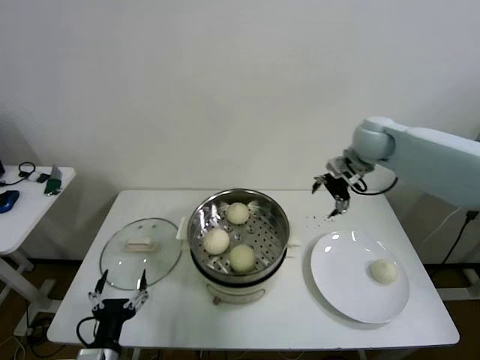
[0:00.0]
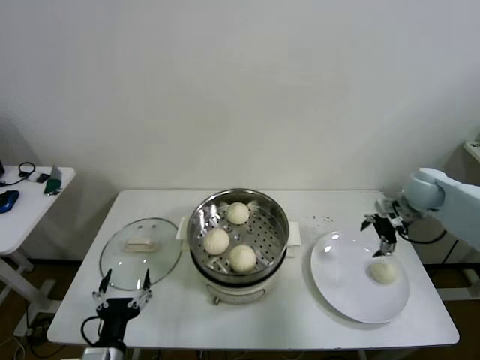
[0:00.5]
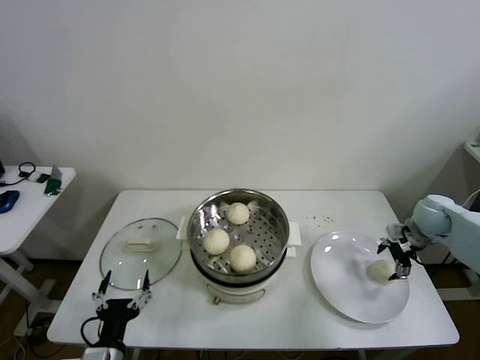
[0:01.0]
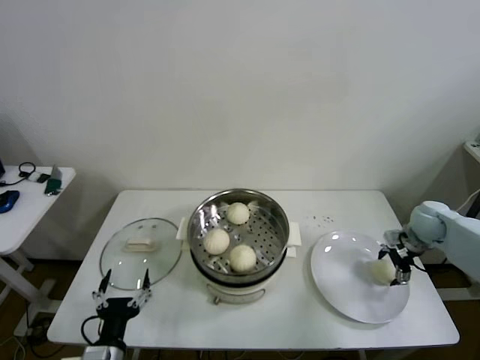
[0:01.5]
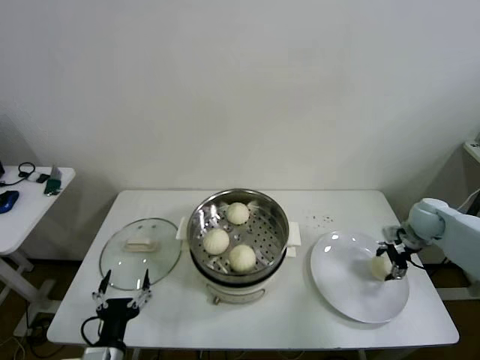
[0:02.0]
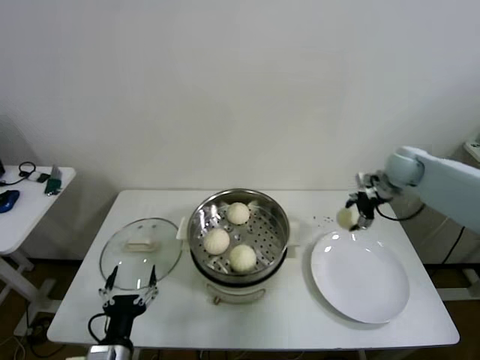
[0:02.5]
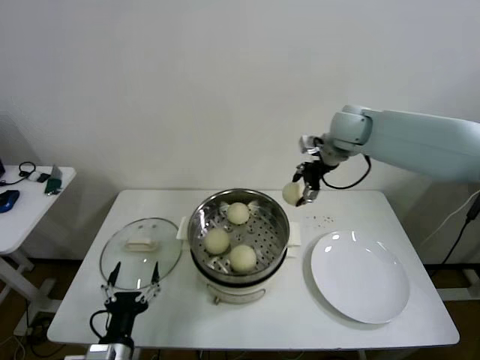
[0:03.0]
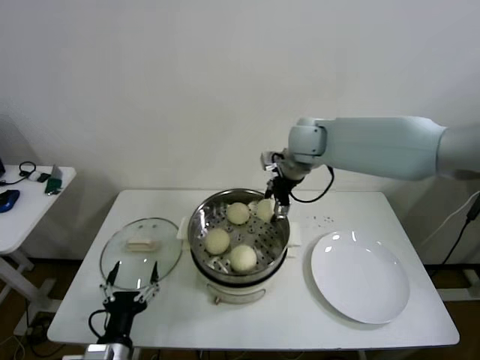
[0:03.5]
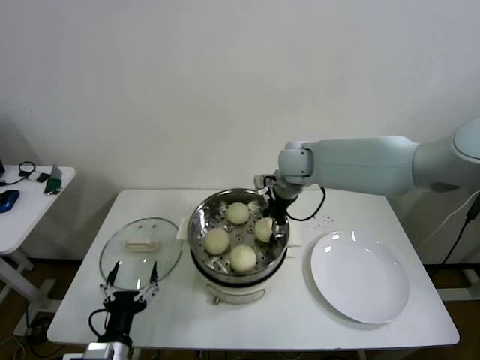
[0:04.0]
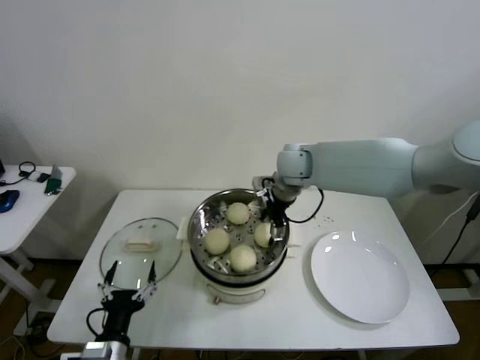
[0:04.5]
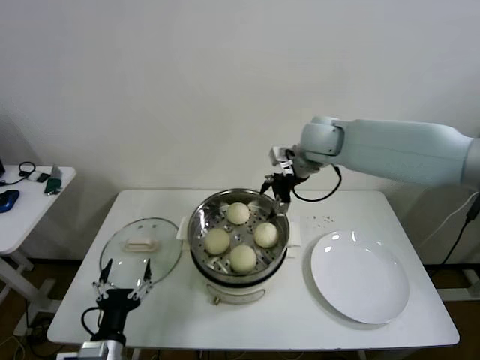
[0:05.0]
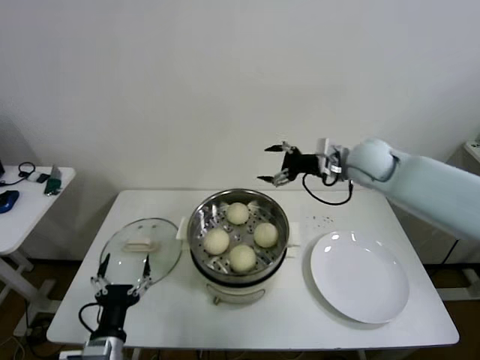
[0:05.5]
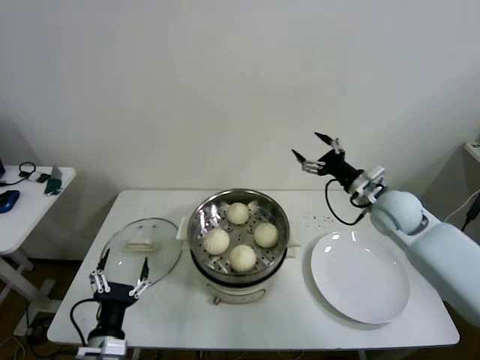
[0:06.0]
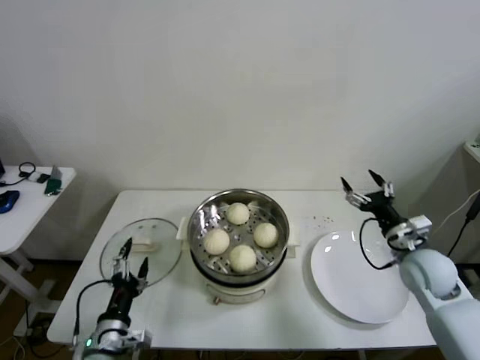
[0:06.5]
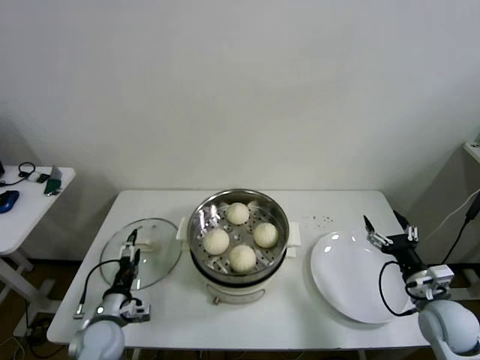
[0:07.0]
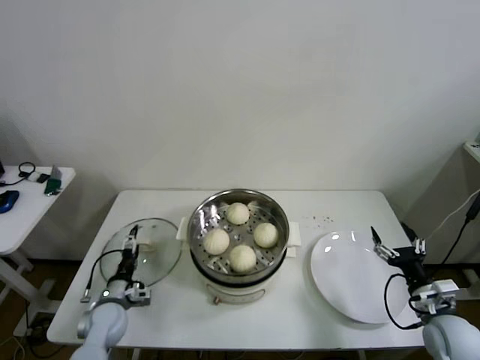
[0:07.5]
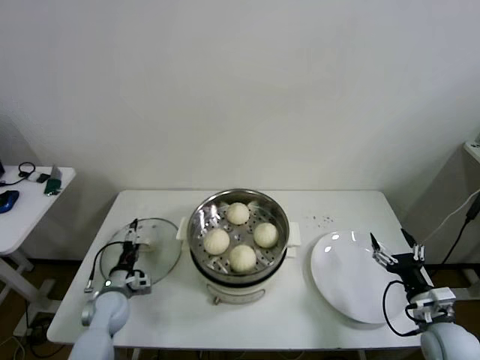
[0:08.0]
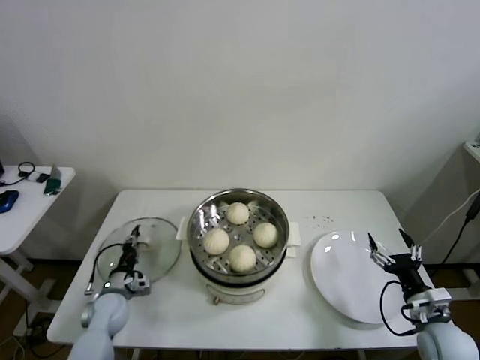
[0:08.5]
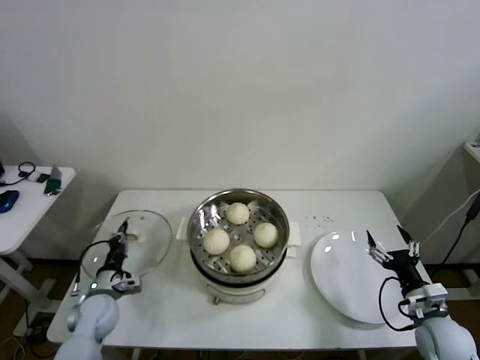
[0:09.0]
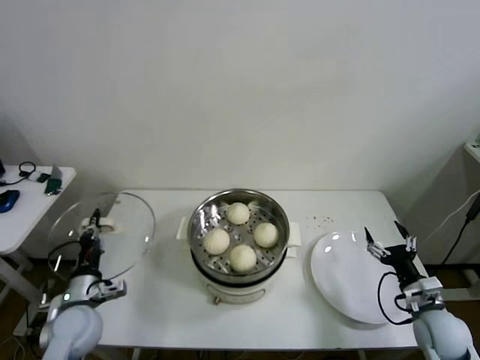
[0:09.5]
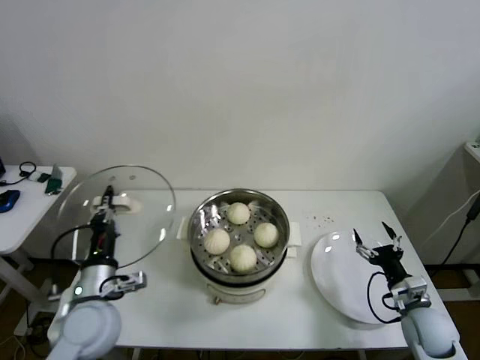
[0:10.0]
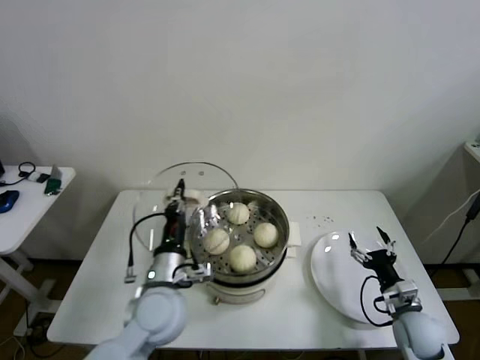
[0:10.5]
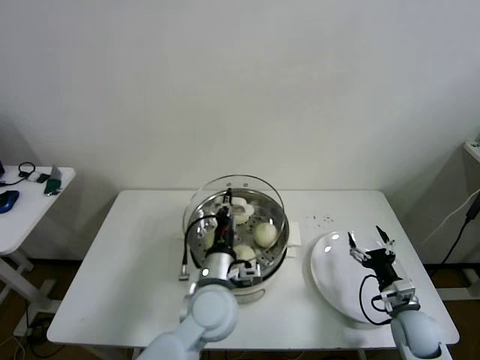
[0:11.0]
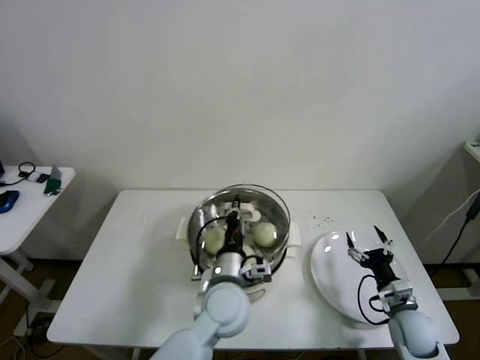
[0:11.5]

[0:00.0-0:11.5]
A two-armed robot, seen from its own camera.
Step, 0:00.0 to 0:01.5: Grasp the baozi in the plate with right gripper.
Step, 0:02.0 to 0:04.5: Place the baozi on the steamer with right gripper.
Step, 0:05.0 to 0:08.5: Grasp the pot lid with left gripper.
0:00.0 to 0:02.0: The right gripper moves downward, to the right and backward, roughly 25 cm, and closes.
0:02.0 to 0:04.0: The right gripper moves to the left and upward, some 35 cm.
0:04.0 to 0:06.0: The right gripper travels to the right and backward by some 20 cm, and opens up.
0:06.0 to 0:07.5: The right gripper heads backward, downward and to the right, covering about 25 cm; the left gripper moves forward, downward and to the left, roughly 20 cm.
0:07.5 to 0:09.5: The left gripper is displaced upward by roughly 10 cm, and closes up.
0:09.5 to 0:11.5: The right gripper shifts by some 5 cm, while the left gripper travels to the right by roughly 30 cm.

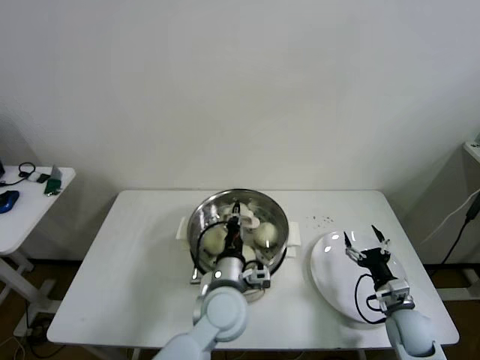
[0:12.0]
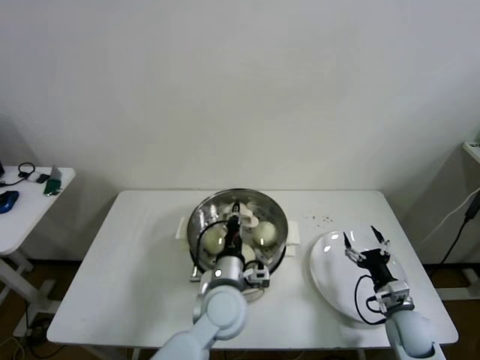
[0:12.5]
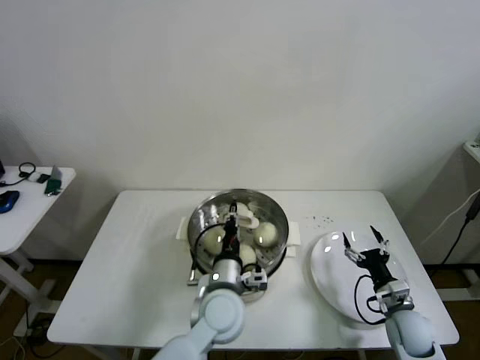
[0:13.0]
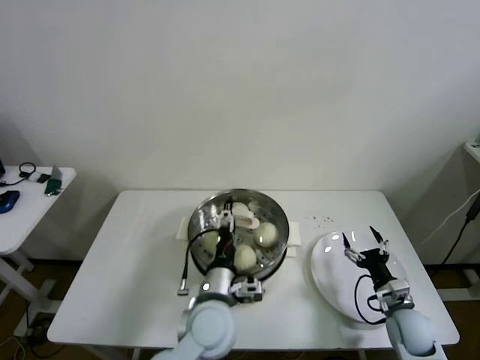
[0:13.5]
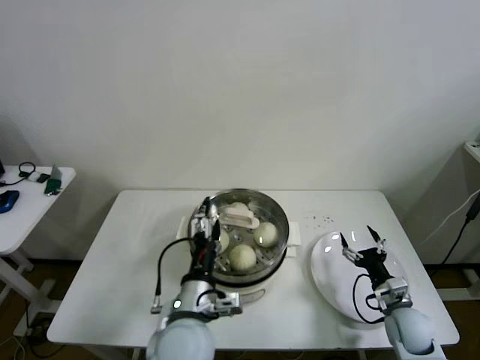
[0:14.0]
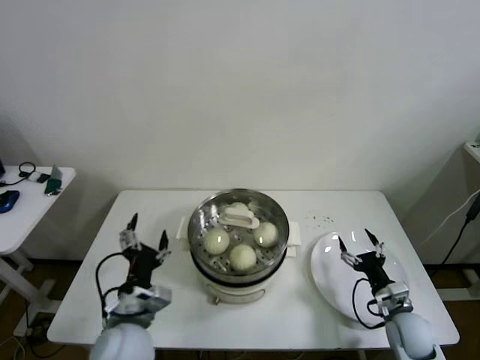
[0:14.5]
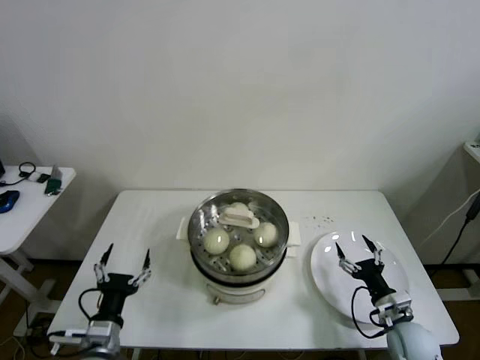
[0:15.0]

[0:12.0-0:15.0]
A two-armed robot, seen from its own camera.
0:12.0 to 0:13.5: The left gripper opens up.
0:13.5 to 0:15.0: The left gripper moves to the left, some 20 cm.

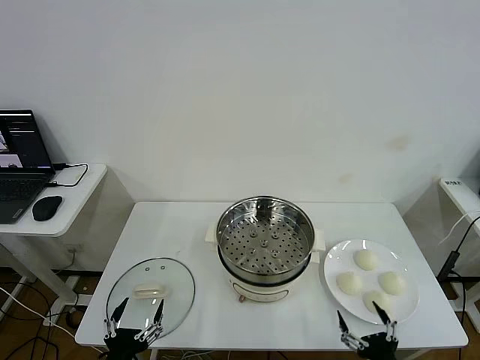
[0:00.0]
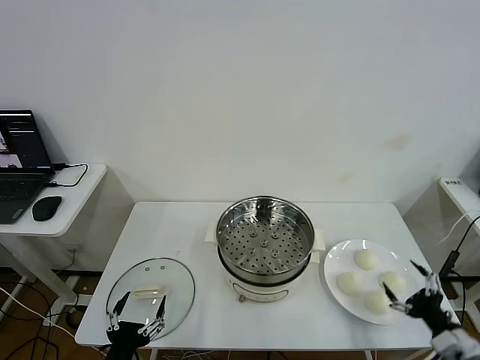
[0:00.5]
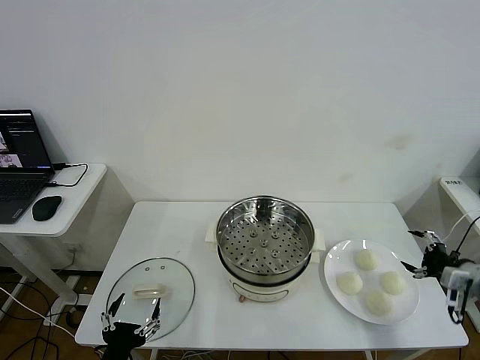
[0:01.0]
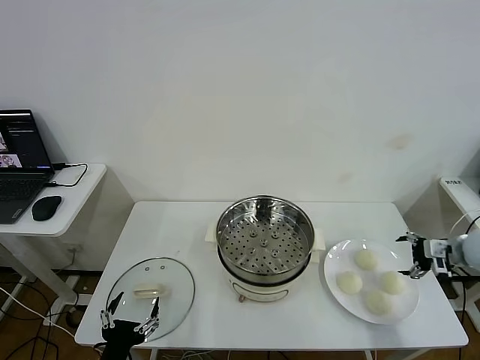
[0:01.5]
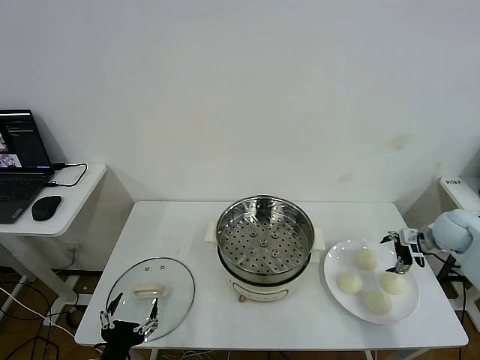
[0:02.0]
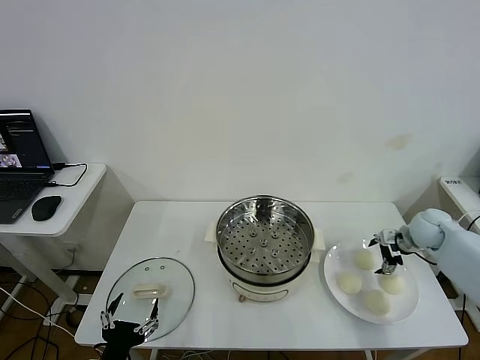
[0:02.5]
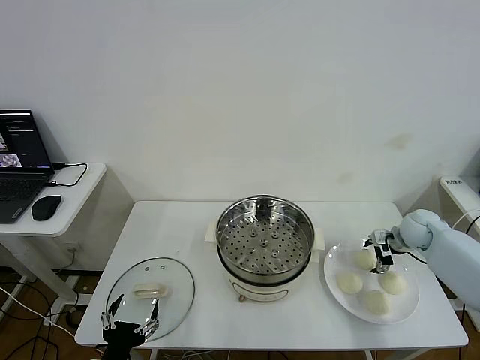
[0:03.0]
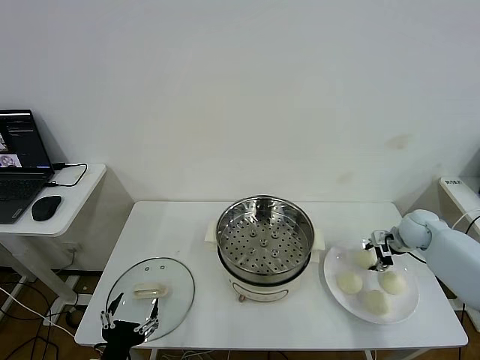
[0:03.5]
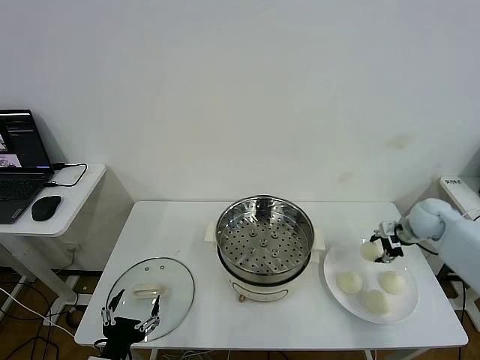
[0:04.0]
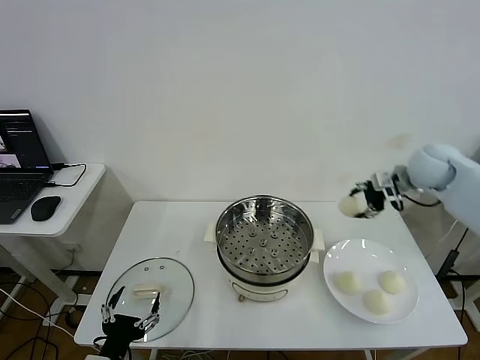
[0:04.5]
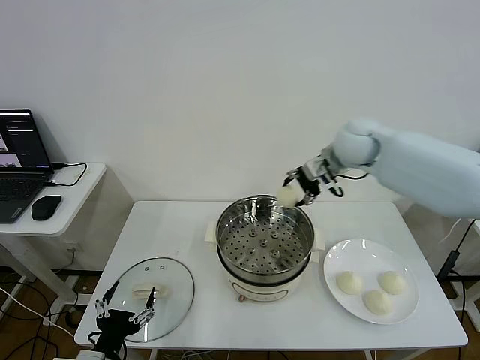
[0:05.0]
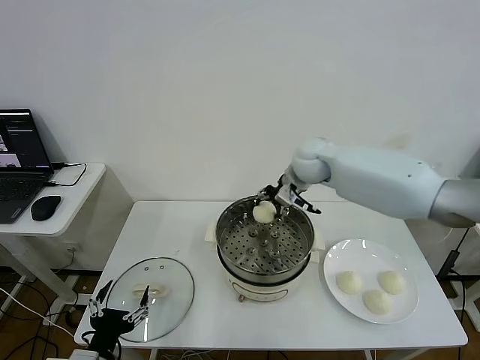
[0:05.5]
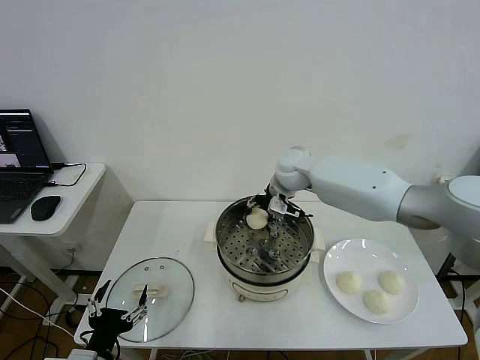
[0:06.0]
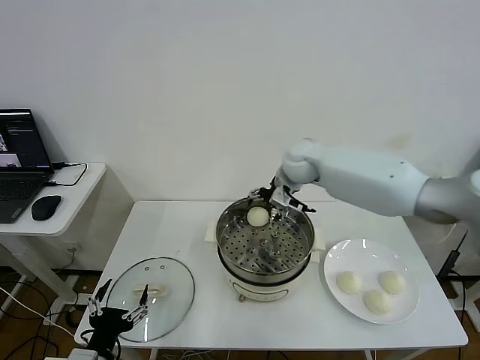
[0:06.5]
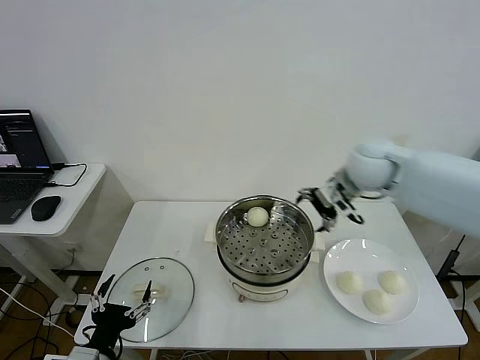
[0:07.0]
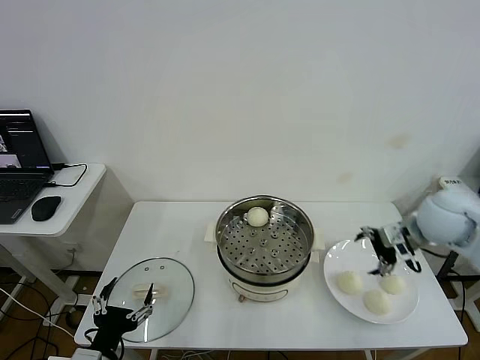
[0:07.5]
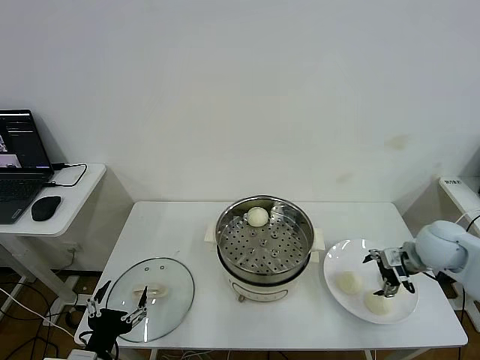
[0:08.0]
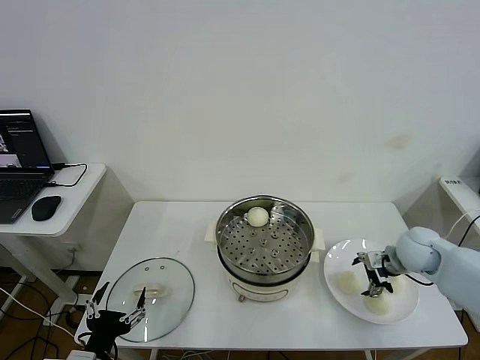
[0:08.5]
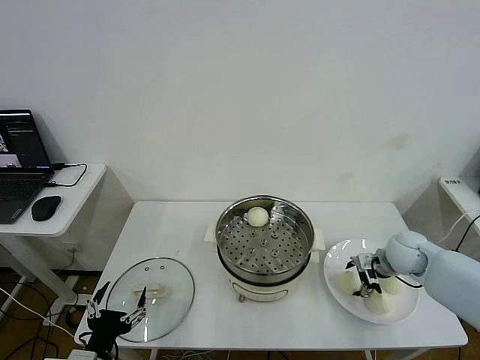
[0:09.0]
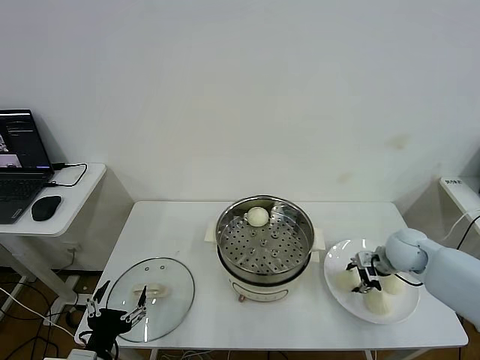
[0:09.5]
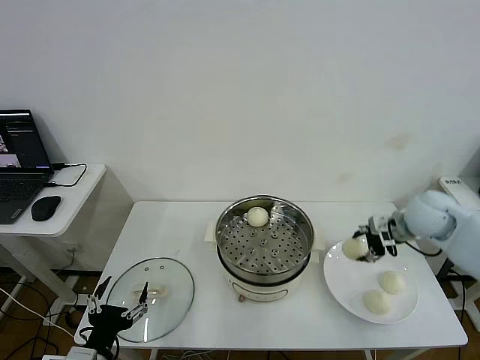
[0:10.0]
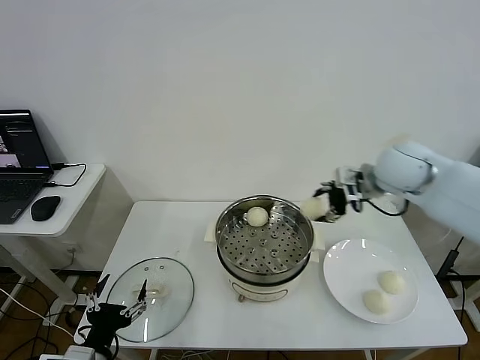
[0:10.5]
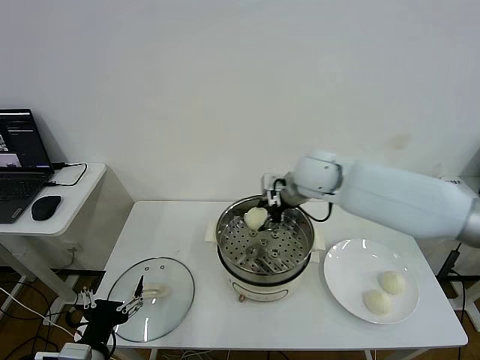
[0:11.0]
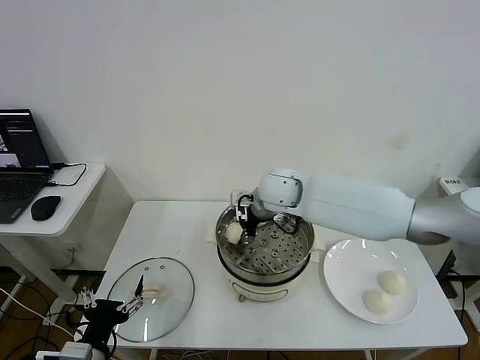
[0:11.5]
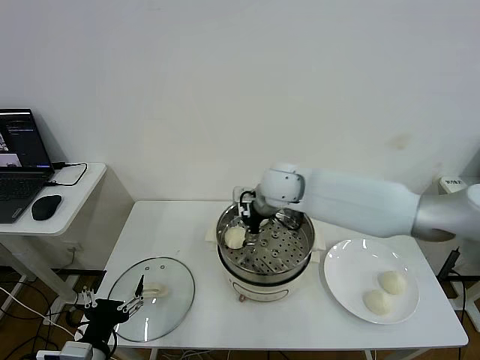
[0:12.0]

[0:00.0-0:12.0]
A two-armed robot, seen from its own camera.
Step, 0:00.0 to 0:03.0: Grasp the baozi in the plate with right gripper.
Step, 0:03.5 to 0:06.0: Place the baozi on the steamer with right gripper.
Step, 0:06.5 to 0:09.0: Grasp the baozi in the plate with right gripper.
Step, 0:09.5 to 0:11.5: Place the baozi on the steamer with right gripper.
0:02.0 to 0:04.0: The right gripper shifts by about 5 cm, and closes.
0:04.0 to 0:06.0: The right gripper travels to the left by approximately 35 cm.
0:06.0 to 0:08.0: The right gripper shifts approximately 35 cm to the right and backward, and opens its fingers.
0:08.0 to 0:10.0: The right gripper shifts about 5 cm forward, and closes its fingers.
0:10.0 to 0:12.0: The right gripper is displaced to the left by about 30 cm, and opens.
